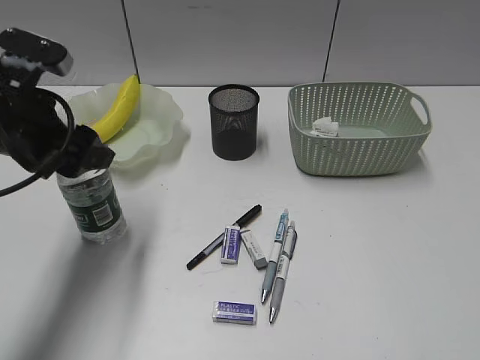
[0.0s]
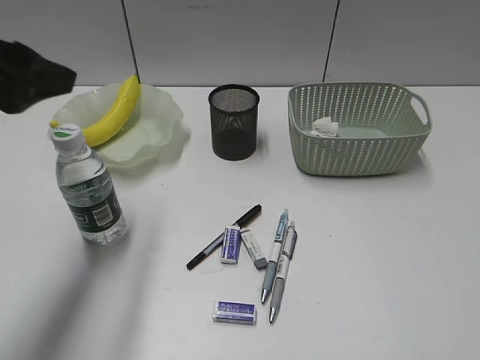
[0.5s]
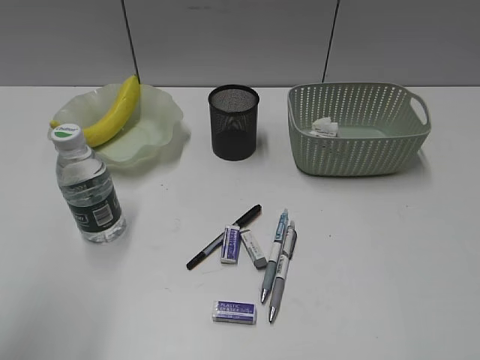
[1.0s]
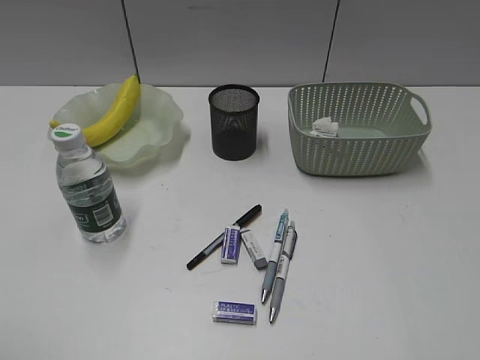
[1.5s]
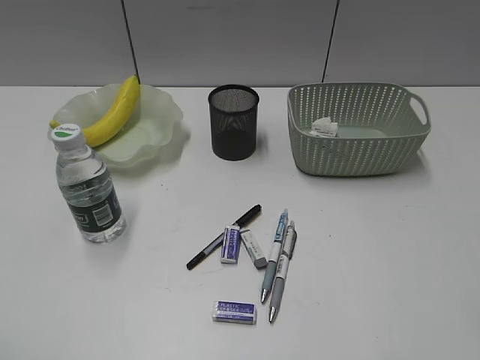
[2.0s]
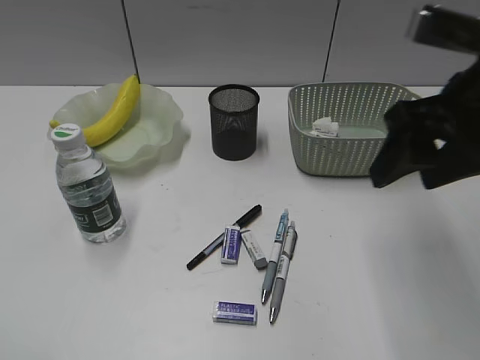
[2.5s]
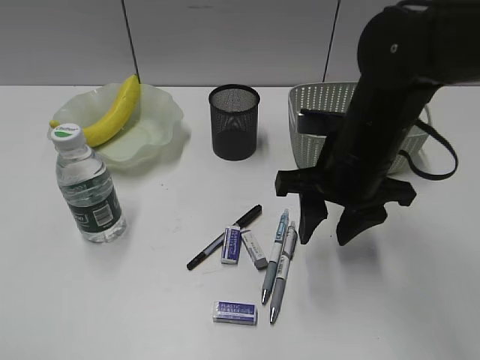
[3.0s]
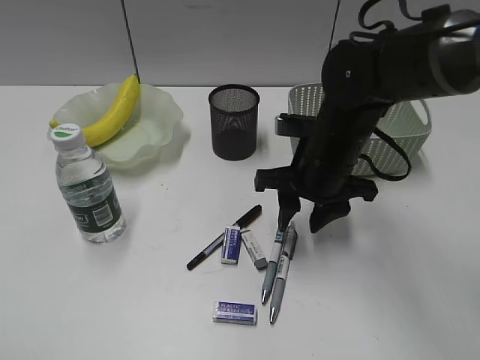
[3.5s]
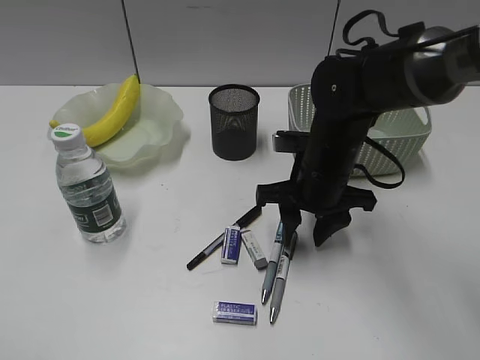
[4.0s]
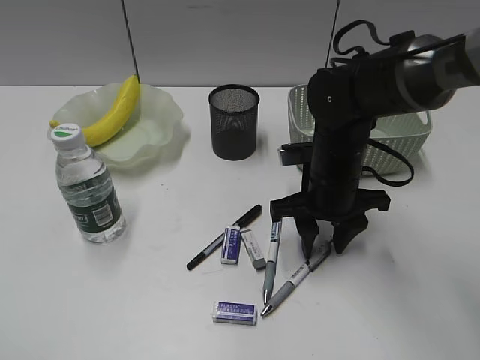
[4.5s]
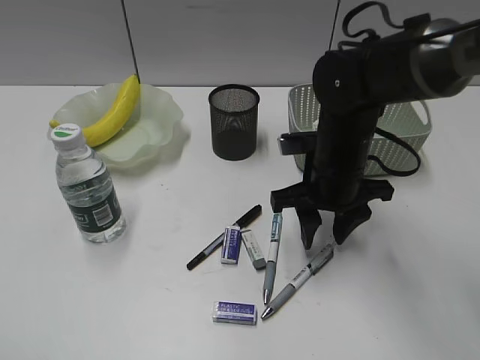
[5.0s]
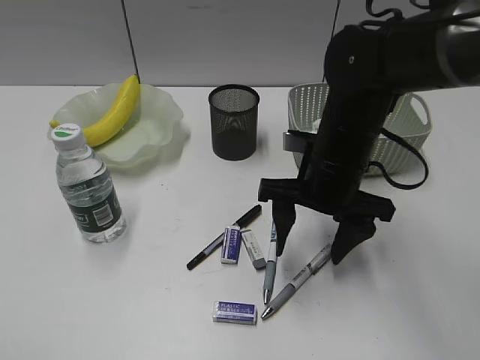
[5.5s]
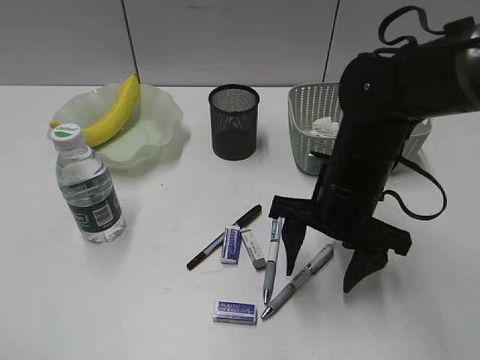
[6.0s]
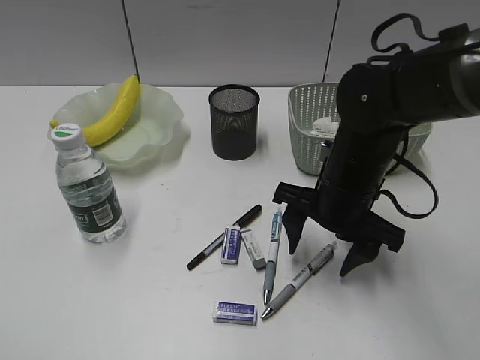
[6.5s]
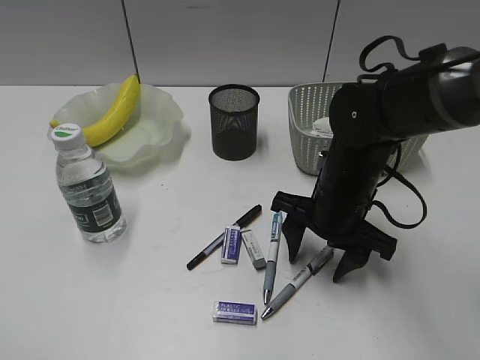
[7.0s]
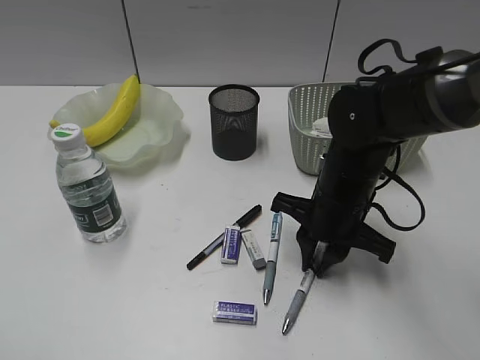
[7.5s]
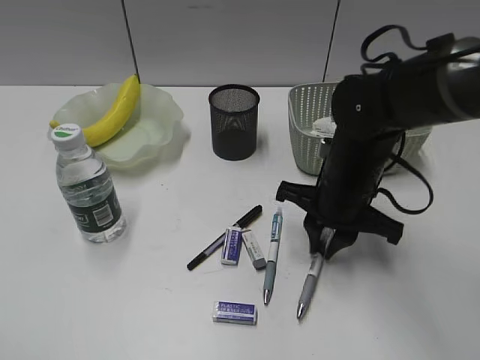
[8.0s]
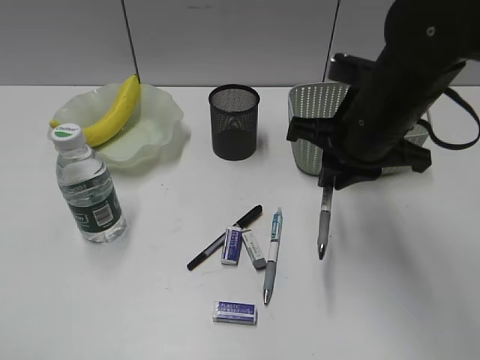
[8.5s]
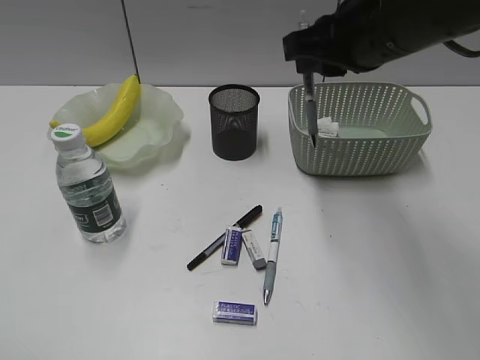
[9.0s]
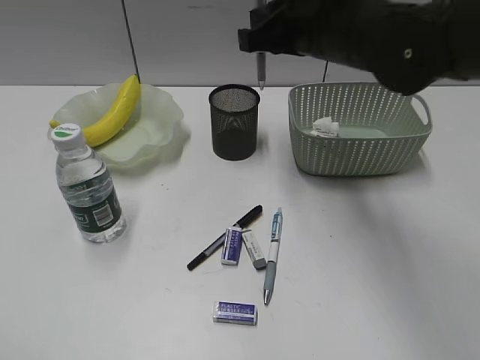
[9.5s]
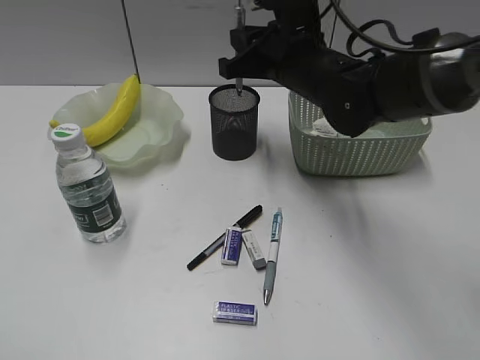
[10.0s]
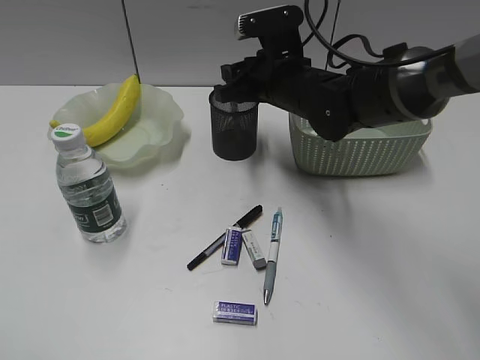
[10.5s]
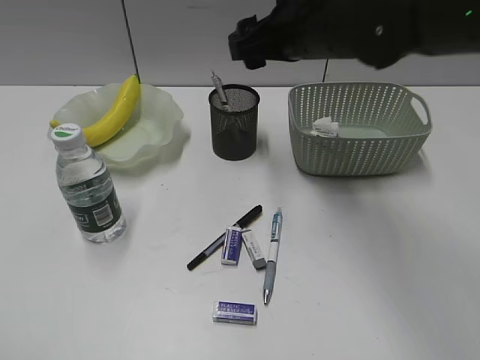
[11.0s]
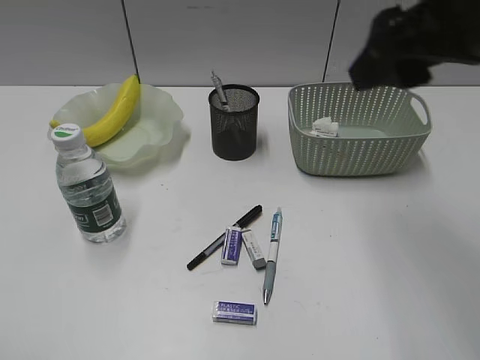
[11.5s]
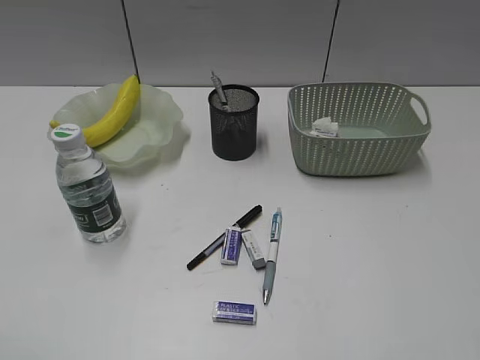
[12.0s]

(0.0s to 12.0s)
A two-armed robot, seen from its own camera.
Step, 0.5s - 7.5s: Grasp the gray pen with right gripper.
Step, 8.0s - 10.5s: Place the gray pen in pen holder with right gripper.
0.0s - 2.0s: The left gripper is displaced backward by roughly 30 cm.
2.0s - 4.0s: The right gripper goes roughly 35 cm forward, downward and to the left.
4.0s - 6.0s: The right gripper ends up about 5 cm from where it was.
6.0s - 8.0s: The right gripper closes.
8.0s - 10.0s: The right gripper goes some 10 cm forward and upward.
10.0s - 12.0s: The right gripper moves backward and to the right, roughly 40 cm, and opens up.

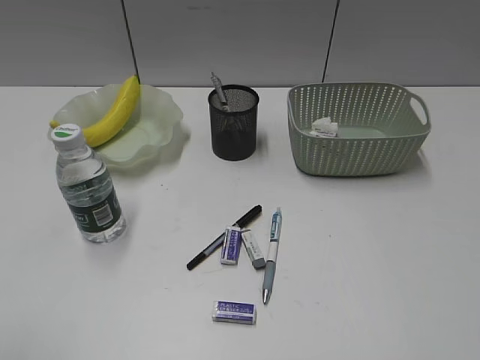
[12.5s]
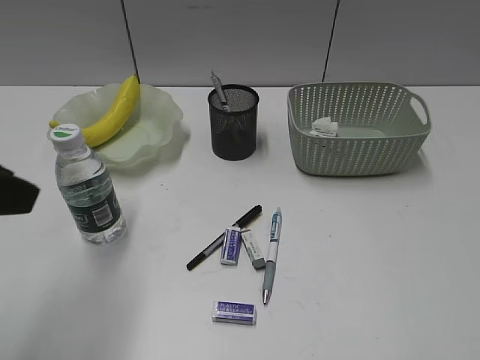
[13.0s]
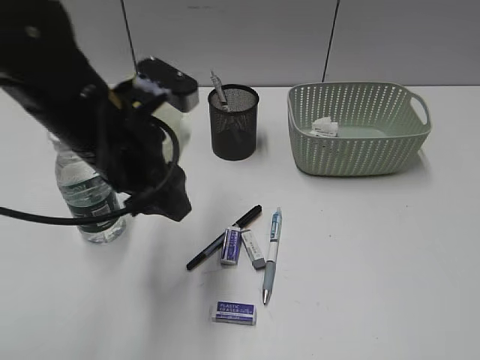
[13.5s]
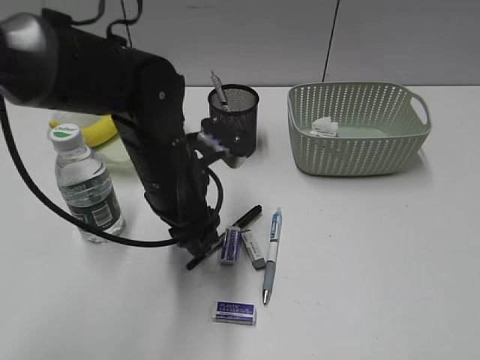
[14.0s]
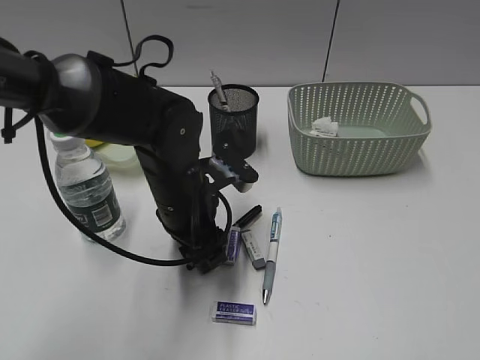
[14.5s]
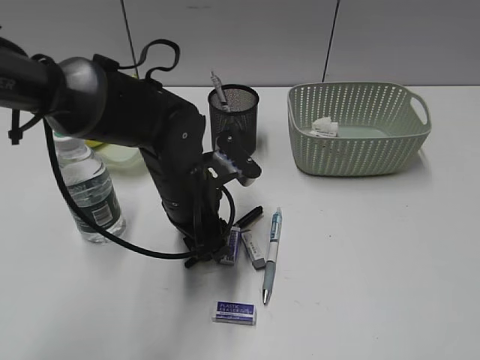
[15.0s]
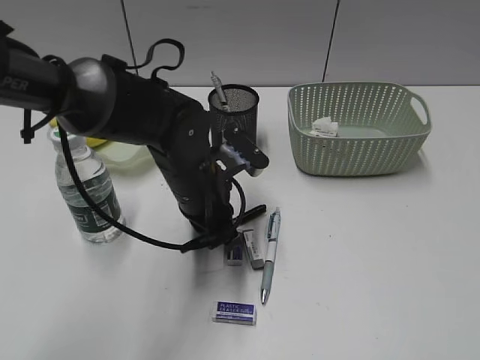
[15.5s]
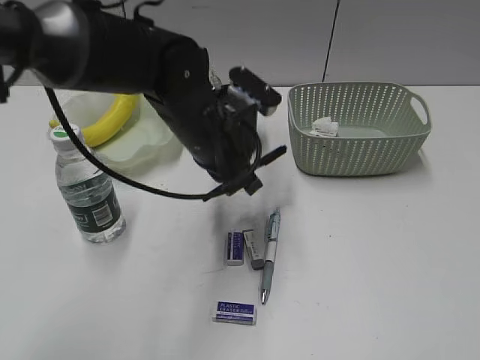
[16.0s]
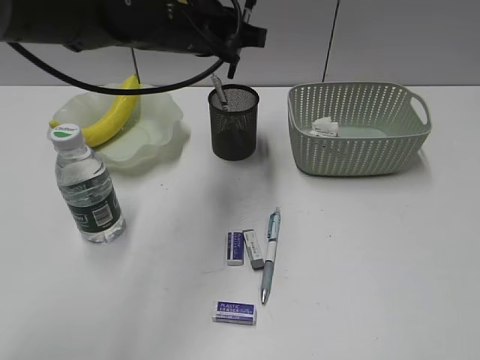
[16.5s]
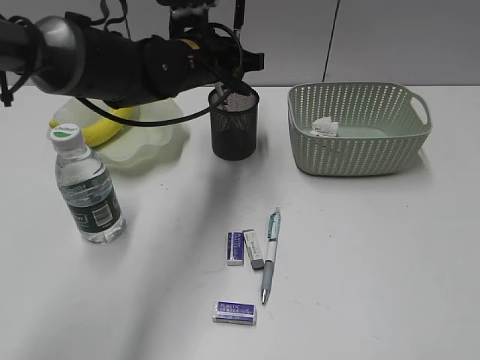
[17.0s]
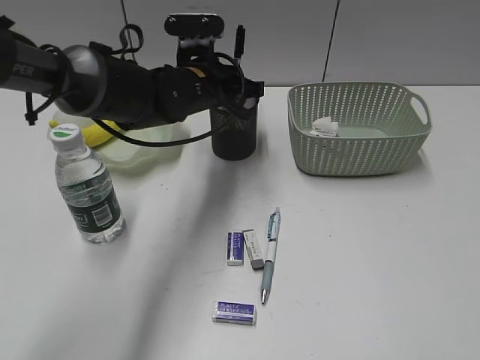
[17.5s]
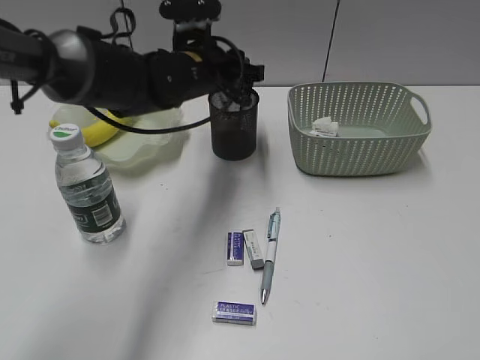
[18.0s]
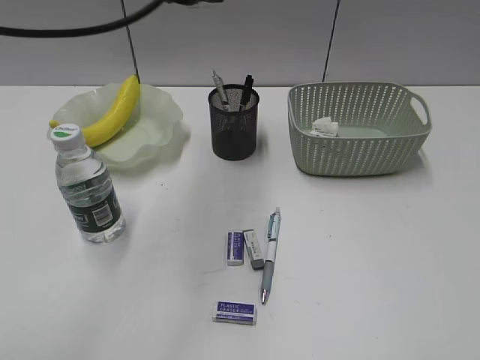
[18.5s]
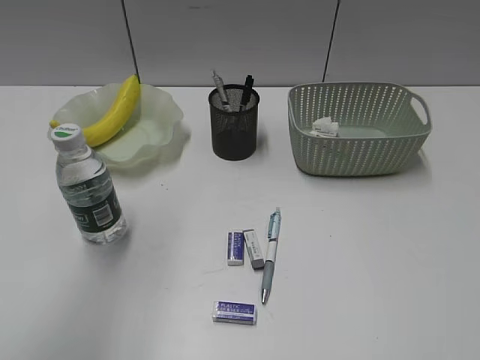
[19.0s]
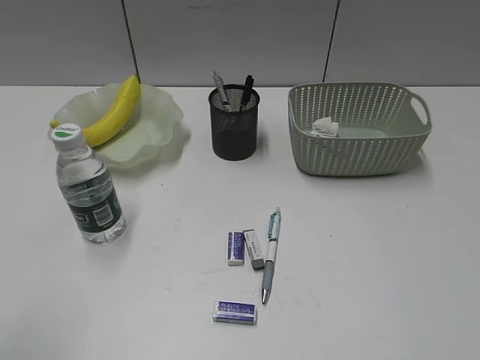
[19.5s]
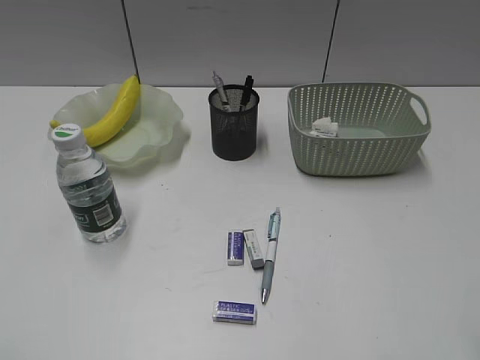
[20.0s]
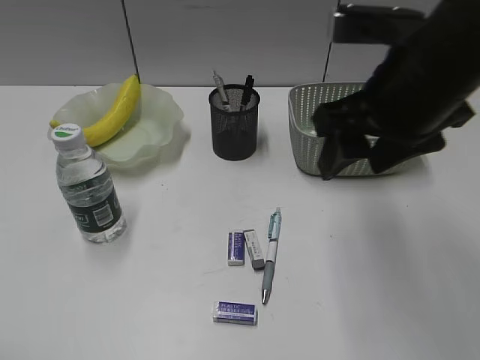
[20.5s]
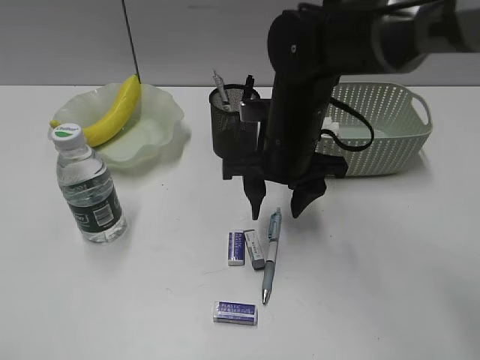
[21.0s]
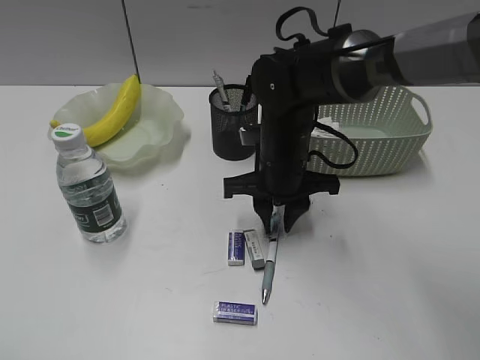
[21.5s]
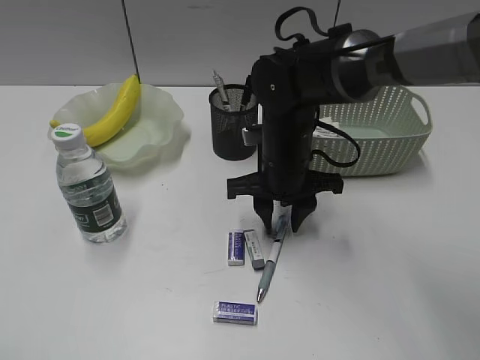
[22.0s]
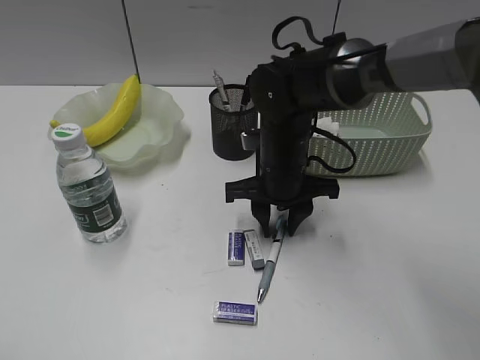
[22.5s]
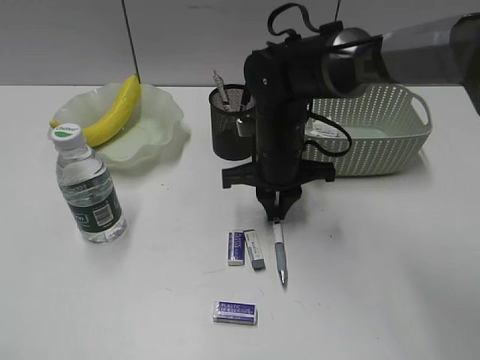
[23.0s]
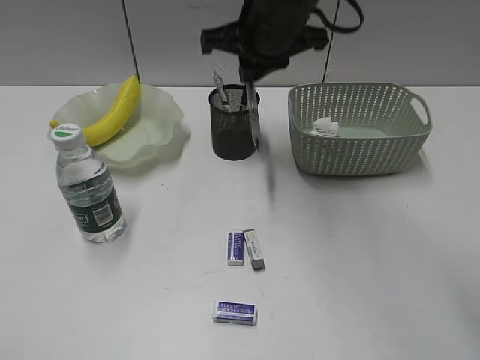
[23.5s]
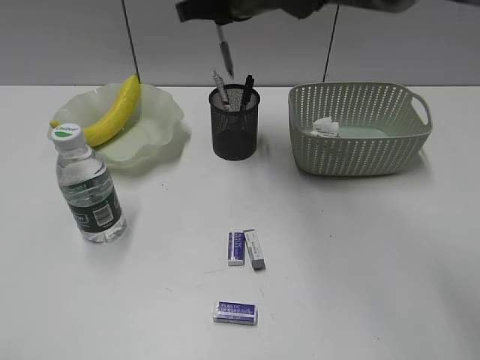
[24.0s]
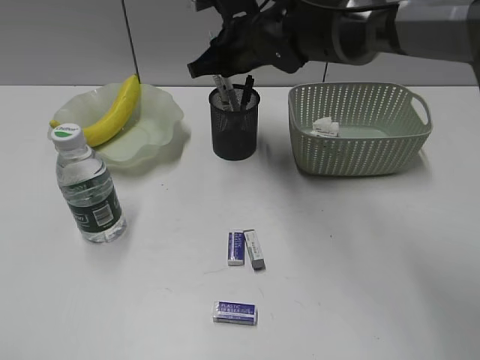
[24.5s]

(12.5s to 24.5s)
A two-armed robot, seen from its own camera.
Step, 12.5s - 15.5s: Grasp the black pen with left gripper.
Step, 16.0s - 17.5s: Place the black pen in pen holder with left gripper.
Step, 18.0s - 22.5s: Grasp the blue pen with right gripper.
12.5s - 14.5s: The left gripper travels forward, to the right and downward by roughly 40 cm.
14.5s - 16.5s: The left gripper moves upward and forward, approximately 15 cm, and closes up.
16.5s - 18.5s: The left gripper is displaced upward and backward by approximately 10 cm, and opens its fingers.
18.5s - 20.5s: The left gripper heads backward and to the left, covering approximately 40 cm; the right gripper shifts approximately 35 cm forward and to the left.
20.5s - 22.5s: The right gripper moves downward, to the left and forward, about 20 cm, and closes up.
22.5s - 24.5s: The right gripper shifts roughly 15 cm forward and upward, and closes up.

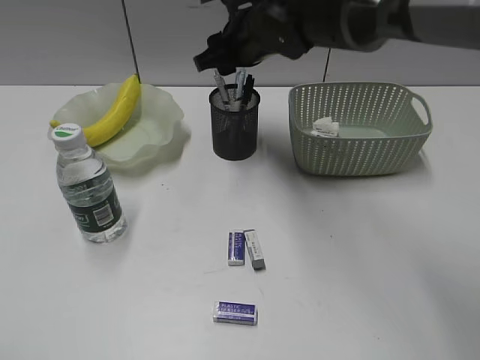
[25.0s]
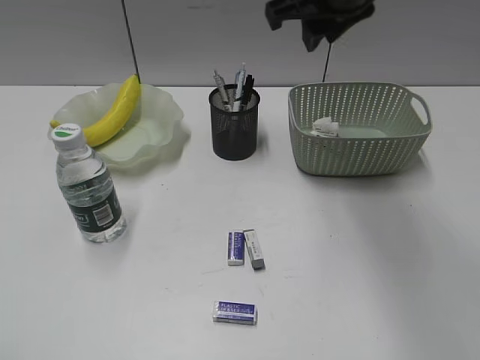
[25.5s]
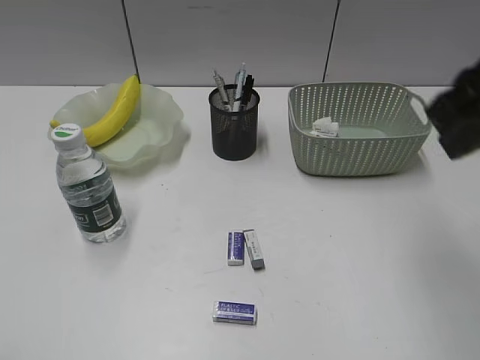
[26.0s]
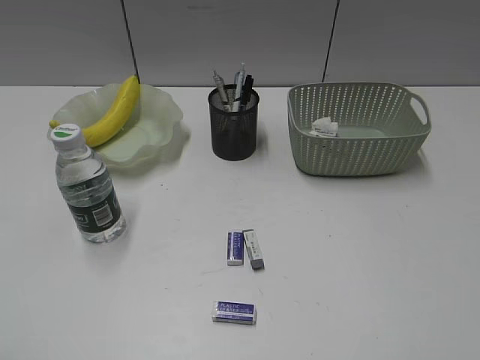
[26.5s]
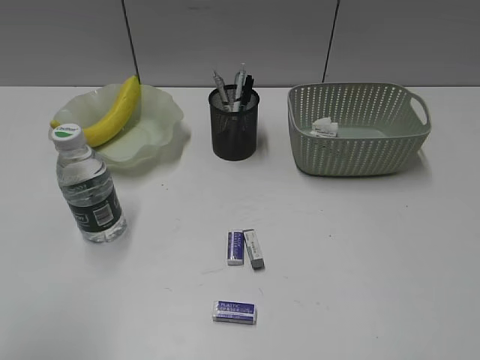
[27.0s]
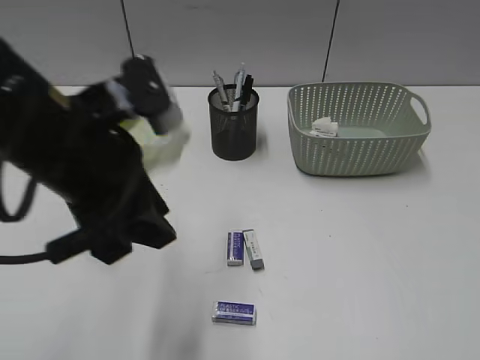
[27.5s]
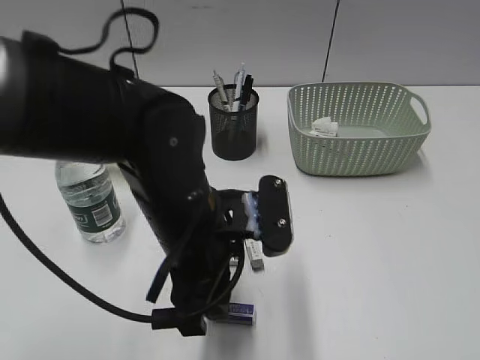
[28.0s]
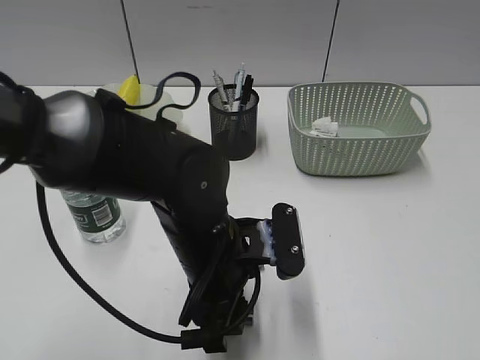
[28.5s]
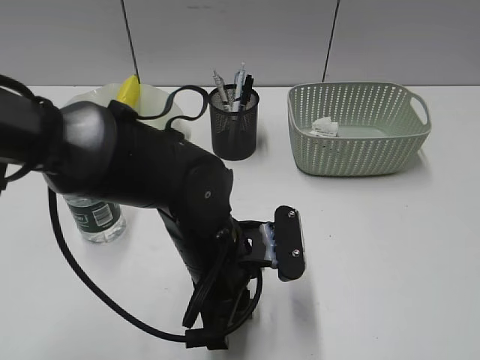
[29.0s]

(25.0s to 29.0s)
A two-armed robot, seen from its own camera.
Step, 25.5s - 29.0s: Grasp the eraser with left gripper.
25.0s - 27.0s: The left gripper travels forward by approximately 5 cm. The right gripper is displaced backward and to the right by some 50 cm, and closes up.
27.0s - 29.0s: The left gripper shifts roughly 35 cm to the right, downward and forward.
